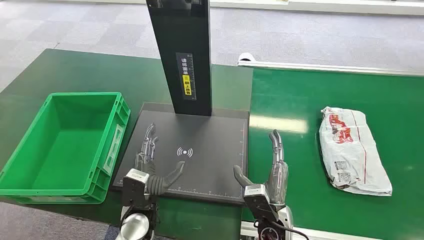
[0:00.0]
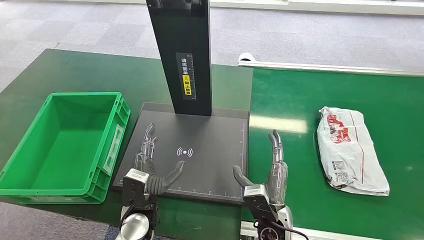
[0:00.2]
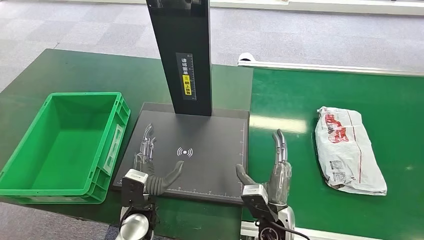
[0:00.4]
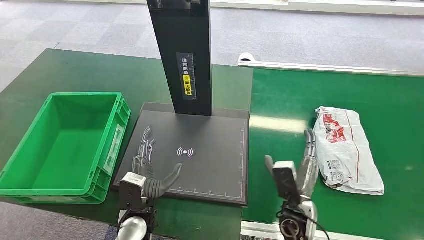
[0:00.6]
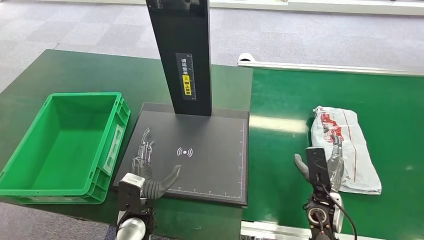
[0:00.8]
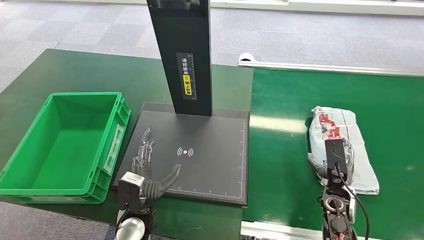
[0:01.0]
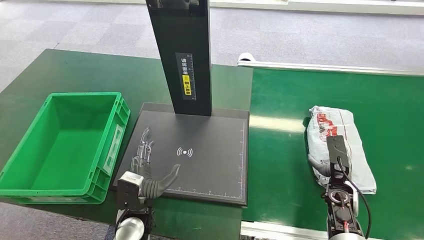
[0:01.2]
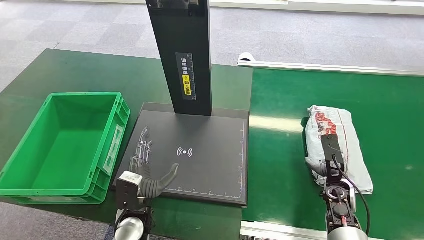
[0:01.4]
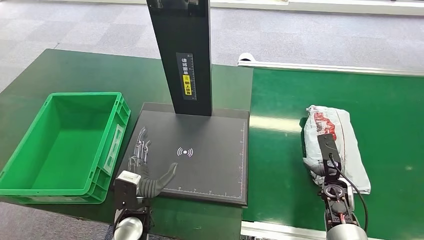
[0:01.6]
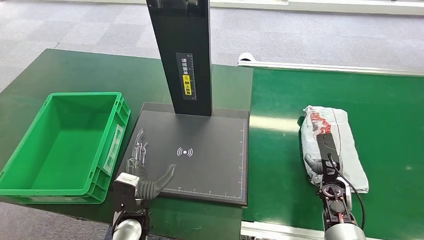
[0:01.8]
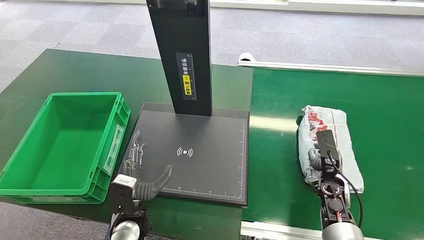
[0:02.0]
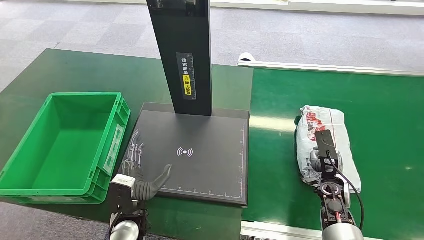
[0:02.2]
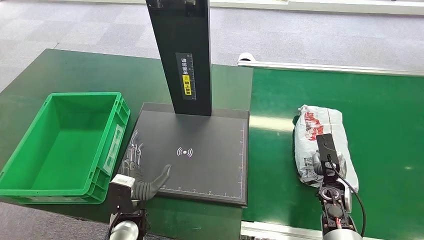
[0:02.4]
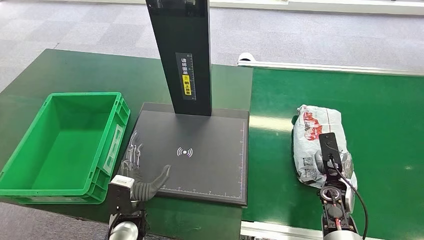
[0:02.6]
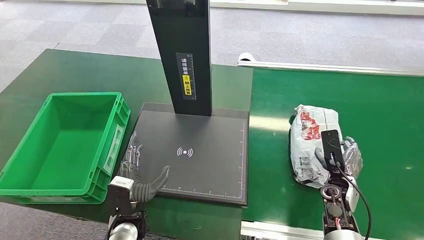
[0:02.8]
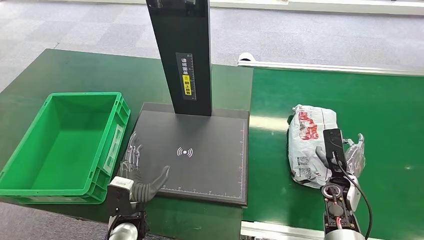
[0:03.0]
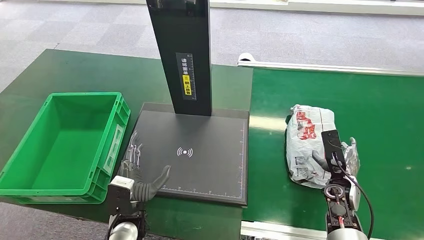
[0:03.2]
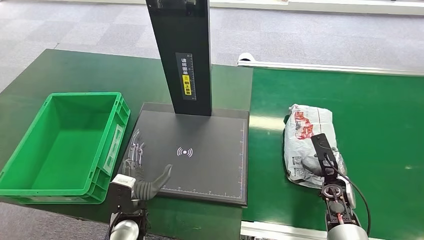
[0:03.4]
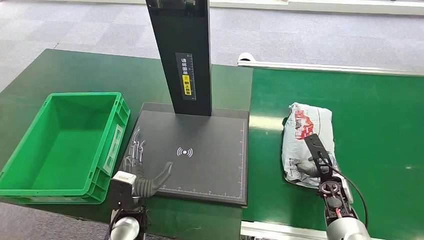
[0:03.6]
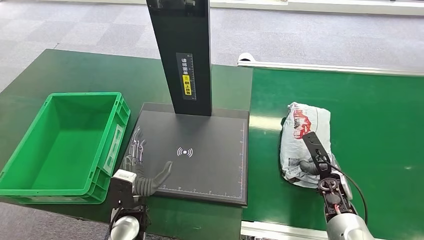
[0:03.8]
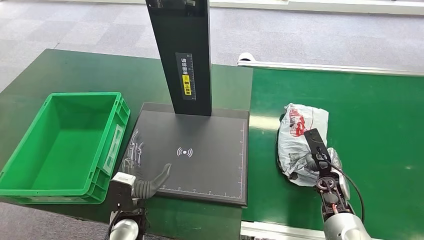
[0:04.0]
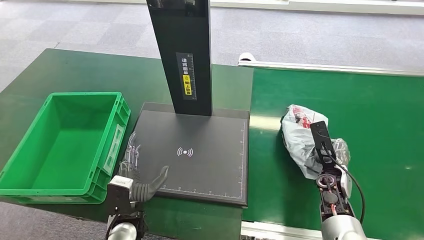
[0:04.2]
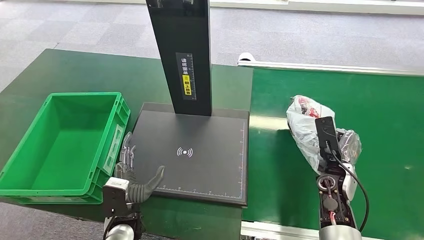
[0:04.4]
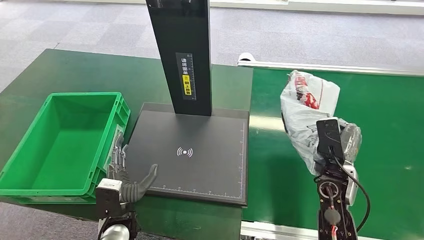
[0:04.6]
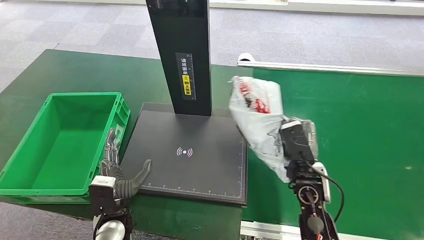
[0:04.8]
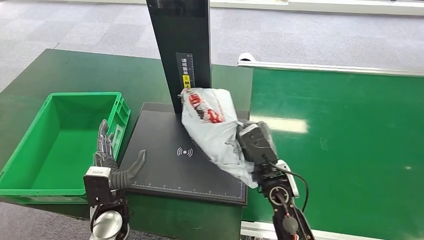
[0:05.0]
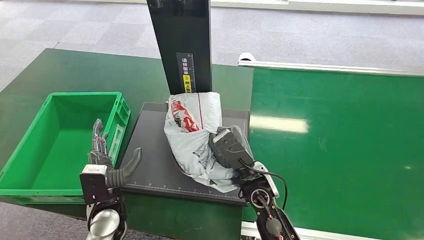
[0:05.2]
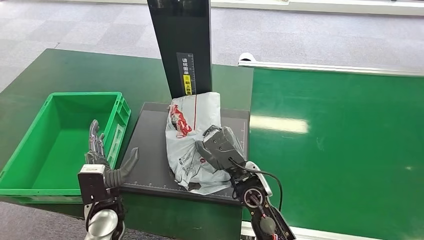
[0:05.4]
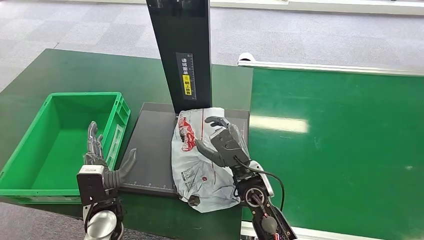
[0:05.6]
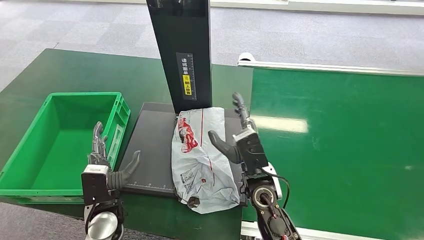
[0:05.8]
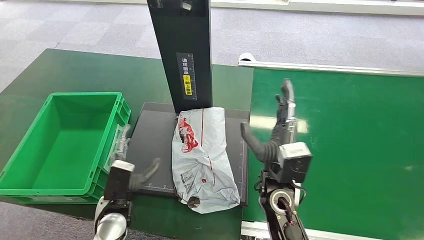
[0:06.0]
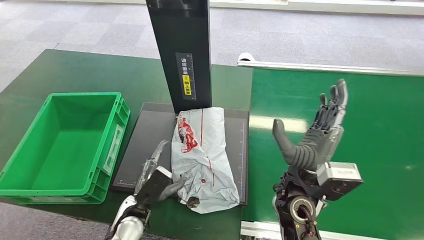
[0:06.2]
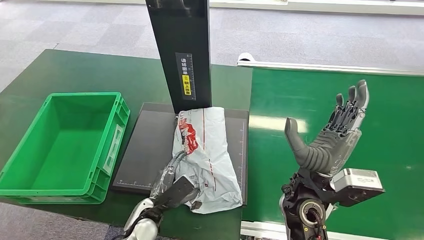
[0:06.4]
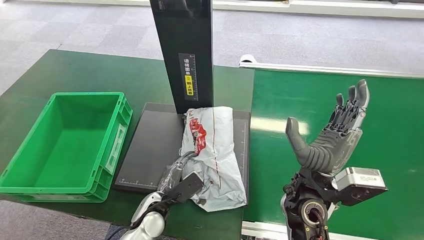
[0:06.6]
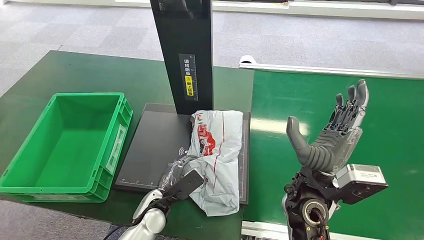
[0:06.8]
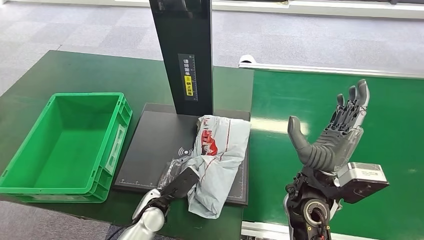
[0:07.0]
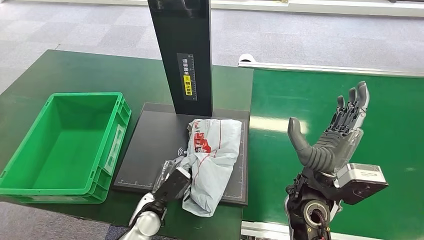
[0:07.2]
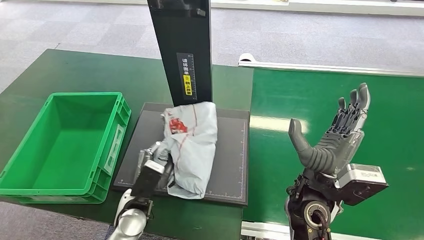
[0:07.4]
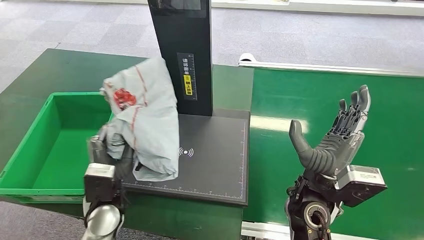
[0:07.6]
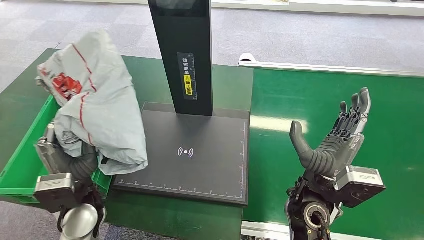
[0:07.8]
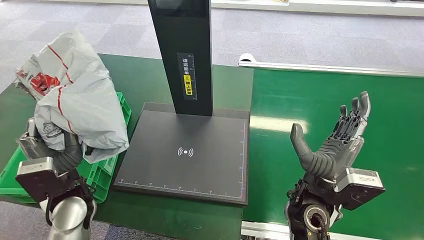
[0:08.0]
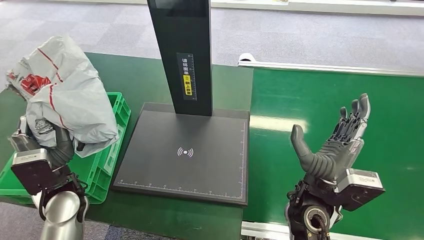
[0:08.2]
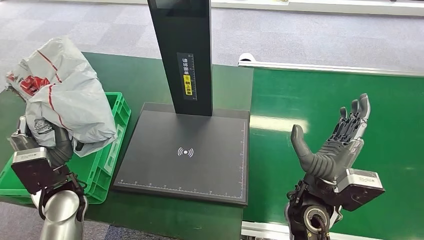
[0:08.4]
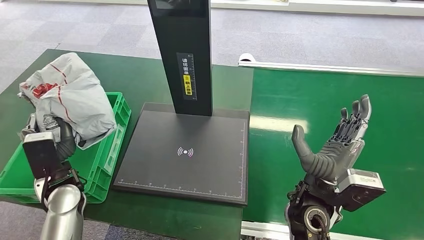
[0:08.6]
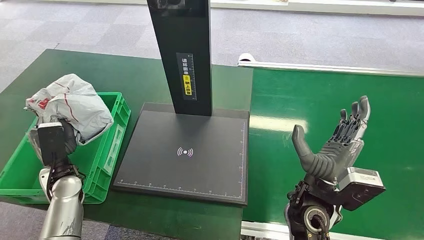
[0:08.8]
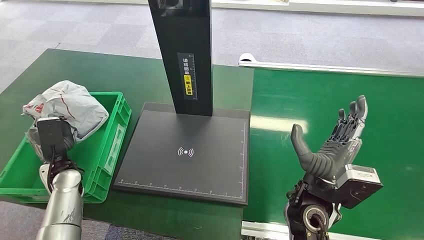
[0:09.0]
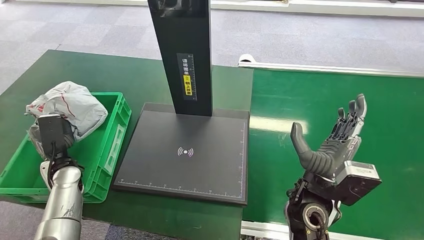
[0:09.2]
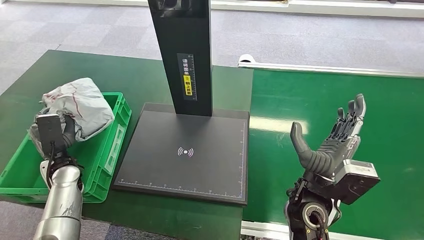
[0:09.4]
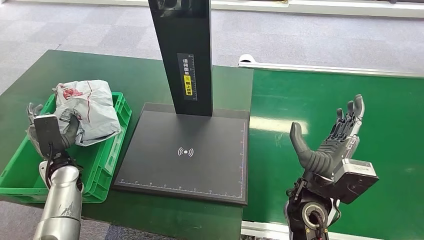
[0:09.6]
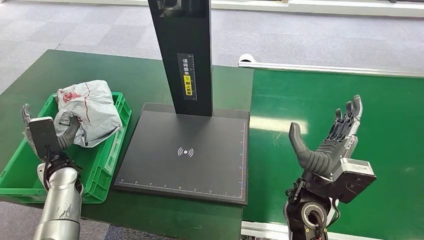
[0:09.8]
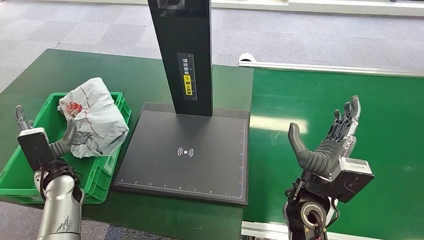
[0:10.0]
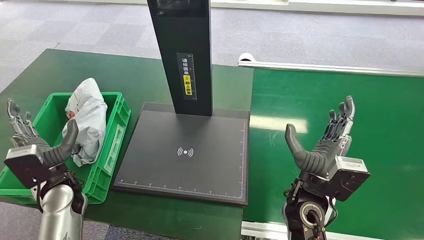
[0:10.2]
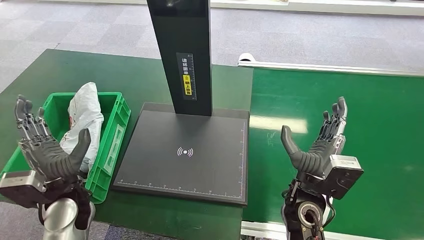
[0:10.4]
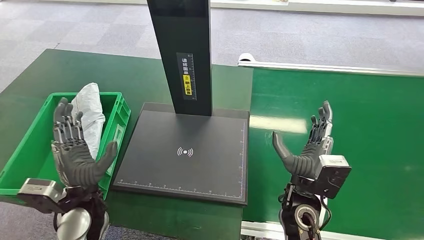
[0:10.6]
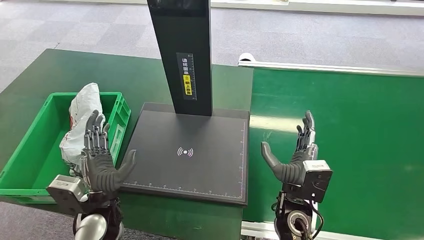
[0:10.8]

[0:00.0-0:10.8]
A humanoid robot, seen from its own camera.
Step, 0:00.0 to 0:04.8: Pick up the package from the conveyor belt.
Step, 0:05.2 to 0:06.2: Place the package onto the inbound machine.
Step, 0:06.4 to 0:07.6: Pick up the package from the inbound machine.
Step, 0:08.0 to 0:10.8: Place the package into the parcel locker.
0:03.0 to 0:04.6: The right hand heads upward and to the left, covering approximately 10 cm.
0:04.6 to 0:06.2: The right hand moves to the left and upward, some 15 cm.
0:09.2 to 0:10.8: The left hand moves to the right and backward, some 20 cm; the right hand moves downward, some 5 cm.
